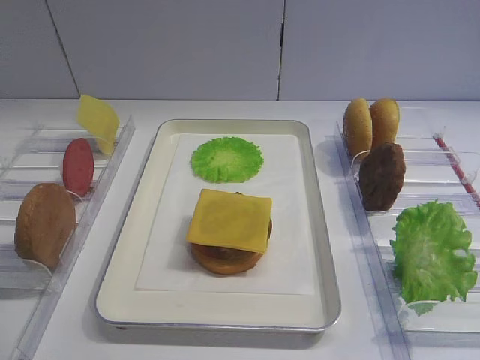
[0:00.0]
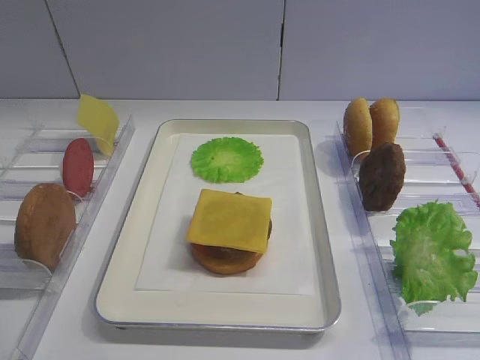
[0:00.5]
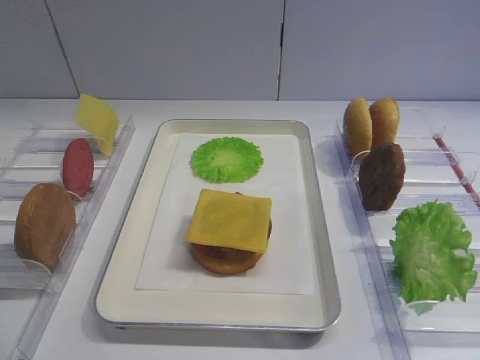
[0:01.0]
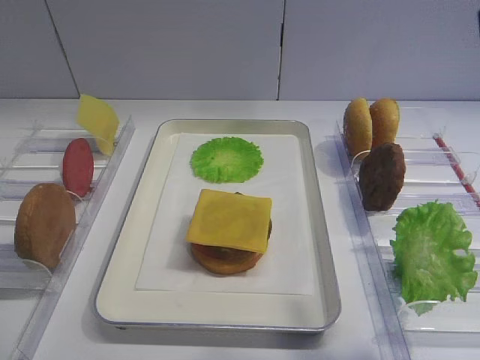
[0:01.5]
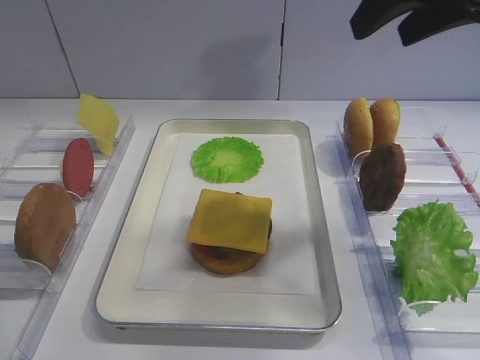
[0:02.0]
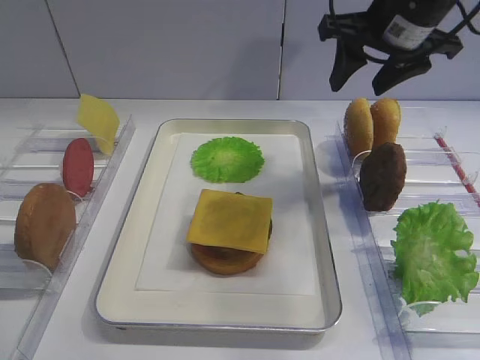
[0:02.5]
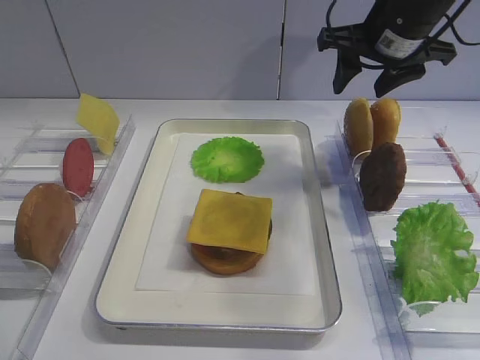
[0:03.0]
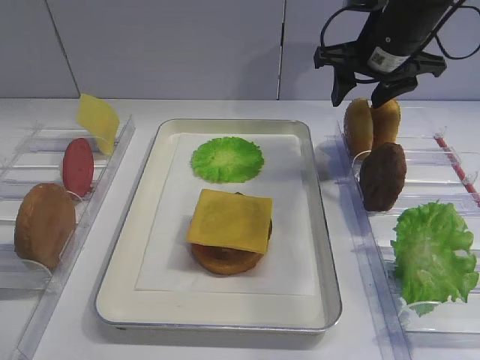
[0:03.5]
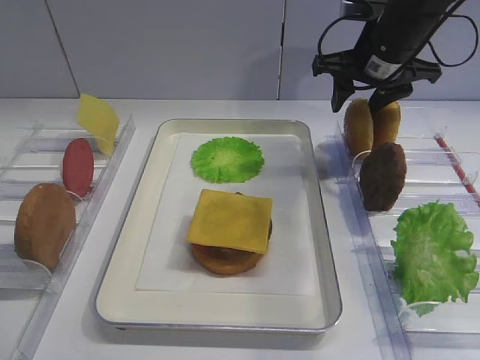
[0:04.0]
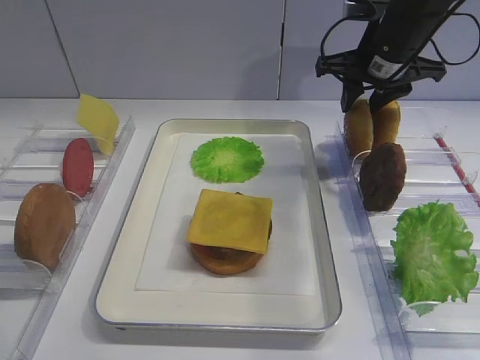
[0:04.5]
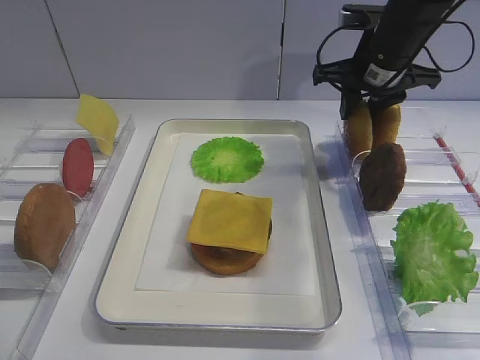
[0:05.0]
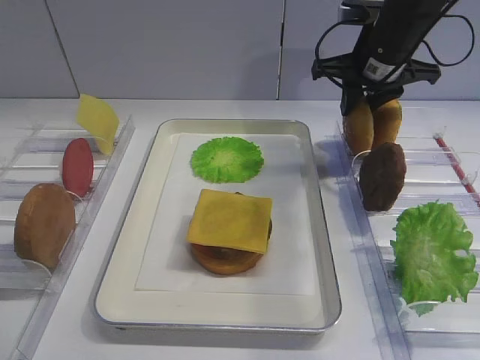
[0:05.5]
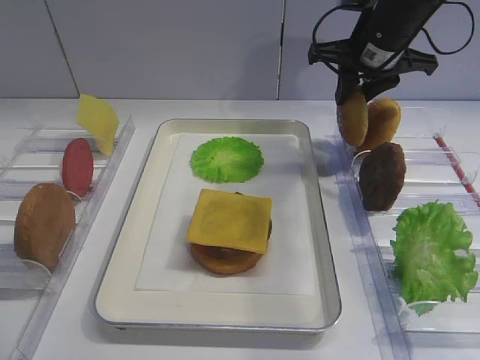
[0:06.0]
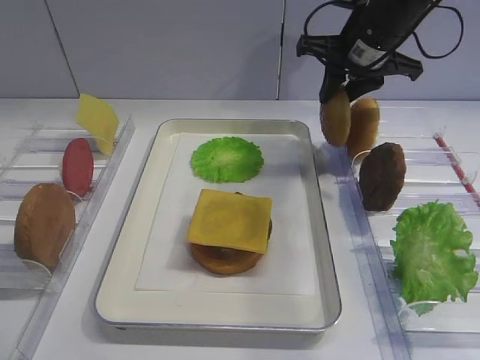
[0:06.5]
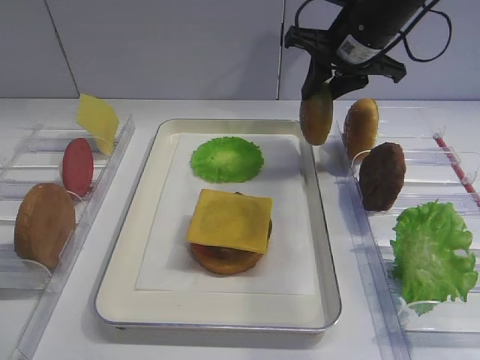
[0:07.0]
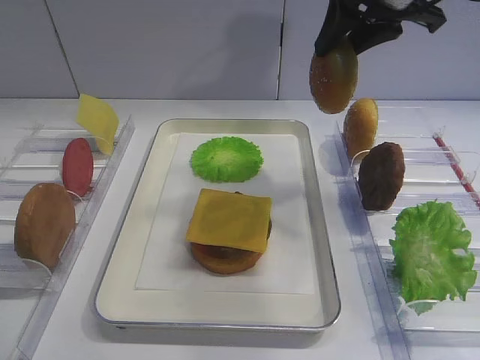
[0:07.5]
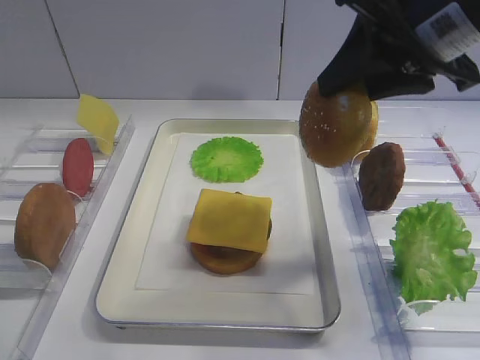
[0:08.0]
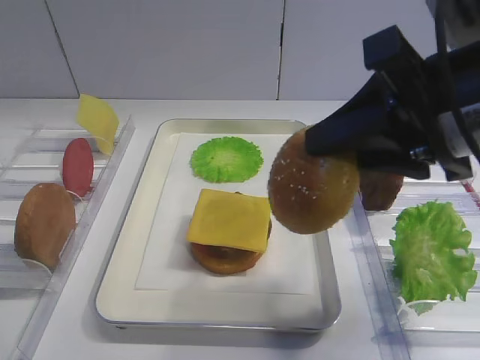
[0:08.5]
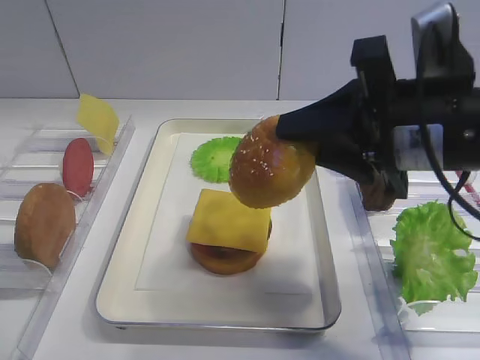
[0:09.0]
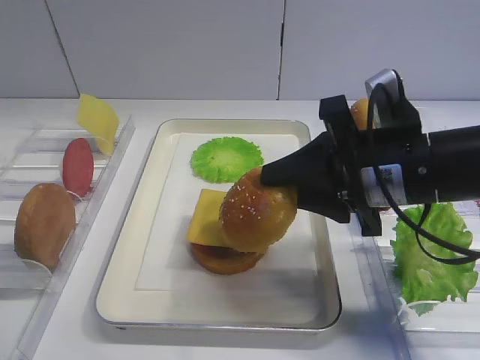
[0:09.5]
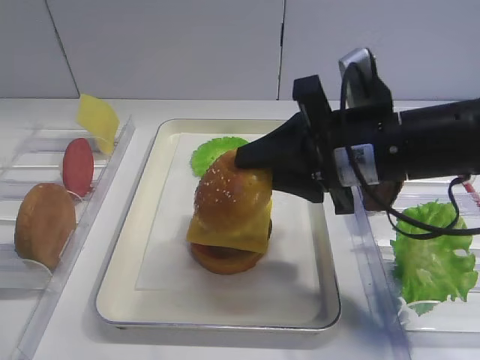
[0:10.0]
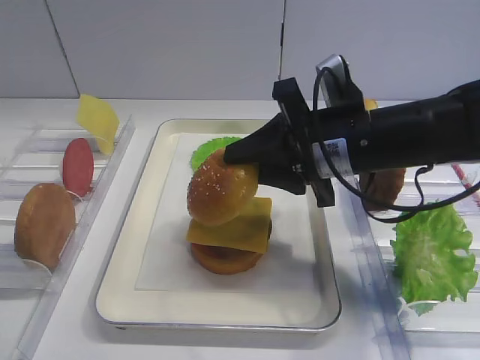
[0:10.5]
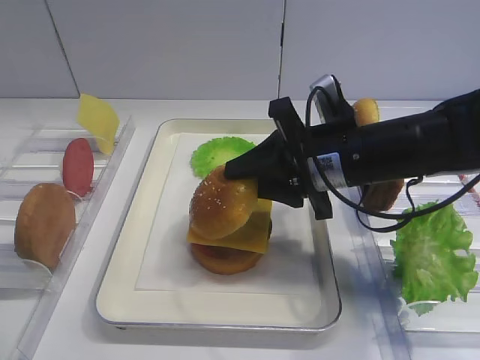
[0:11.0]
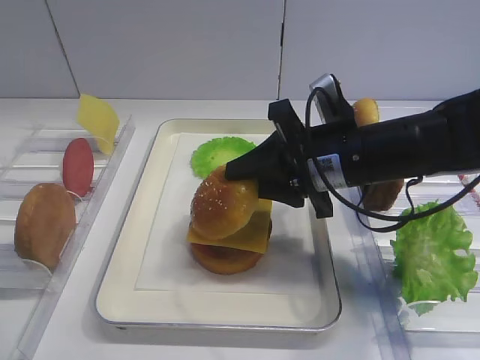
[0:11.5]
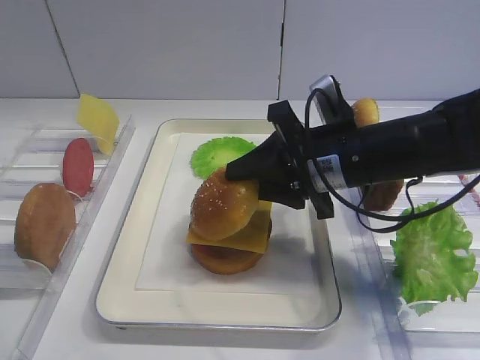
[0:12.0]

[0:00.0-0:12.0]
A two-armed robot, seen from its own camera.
Step, 0:00.0 to 0:06.5: Pick up the hamburger lid with the right gripper.
0:02.0 to 0:04.0: The right gripper heads forward and downward, covering roughly 20 cm.
0:04.0 to 0:06.0: The right gripper closes.
0:06.0 to 0:08.0: The right gripper shifts about 20 cm backward and upward.
0:08.0 to 0:10.0: The right gripper goes about 10 cm downward.
0:10.0 to 0:12.0: The right gripper moves roughly 5 cm.

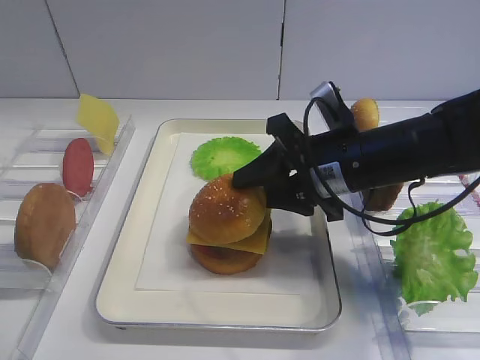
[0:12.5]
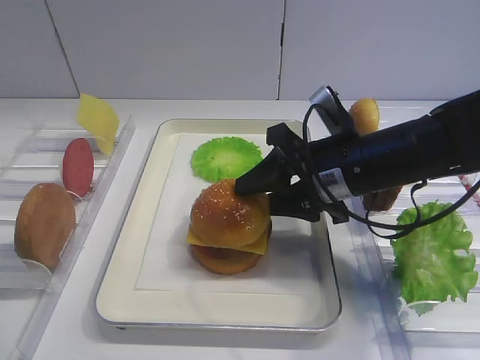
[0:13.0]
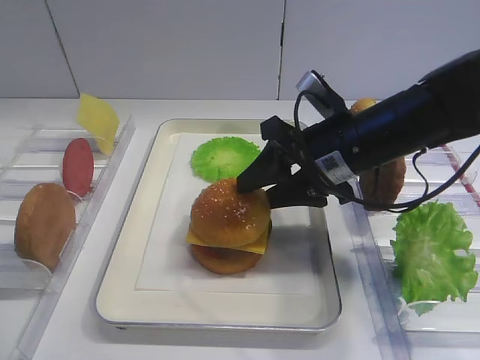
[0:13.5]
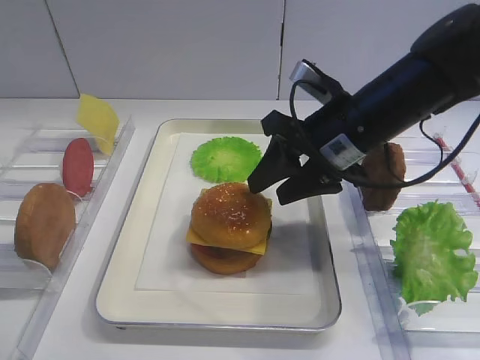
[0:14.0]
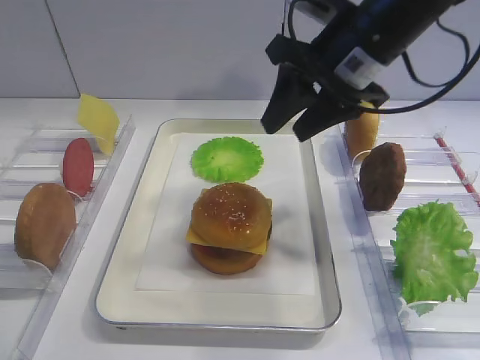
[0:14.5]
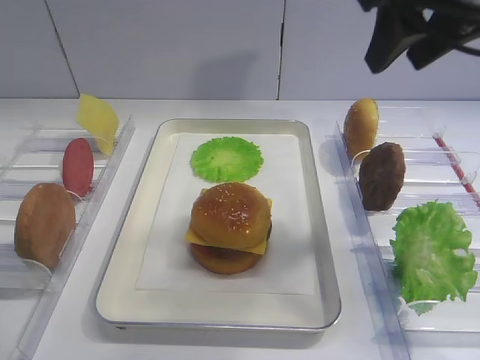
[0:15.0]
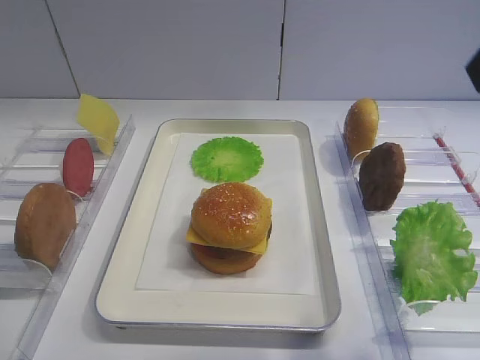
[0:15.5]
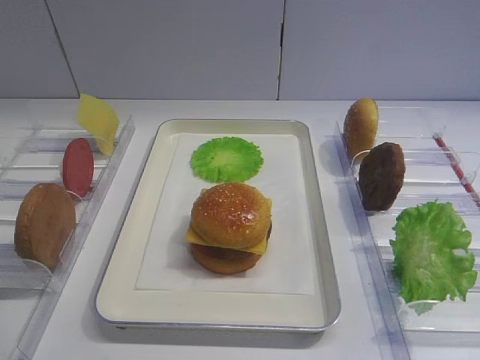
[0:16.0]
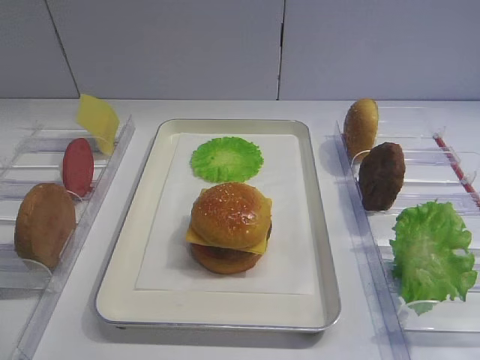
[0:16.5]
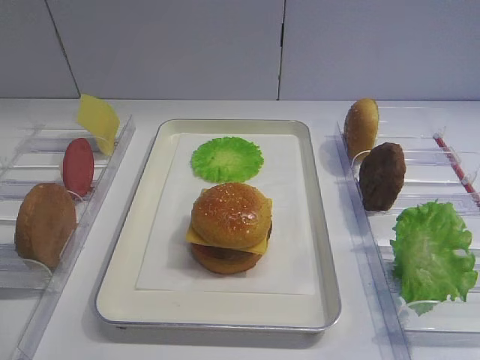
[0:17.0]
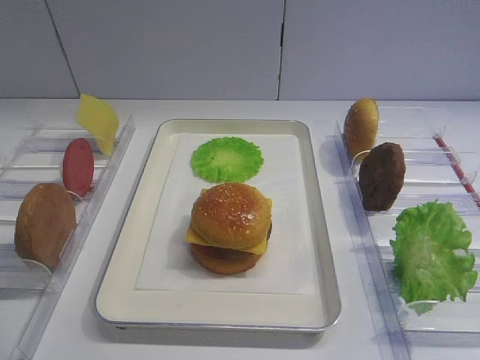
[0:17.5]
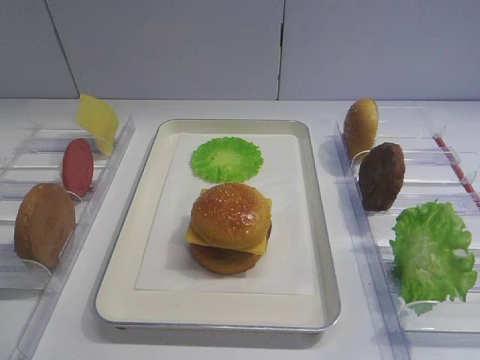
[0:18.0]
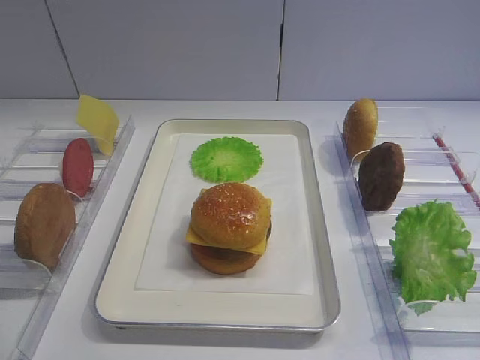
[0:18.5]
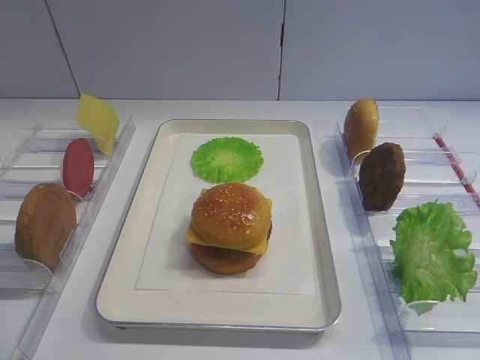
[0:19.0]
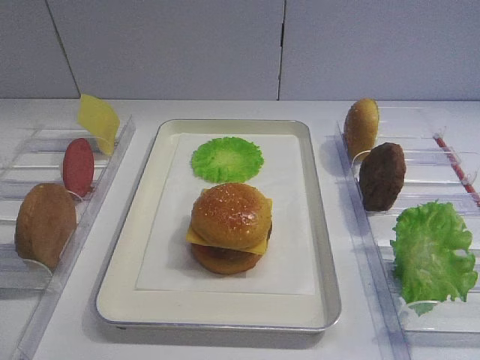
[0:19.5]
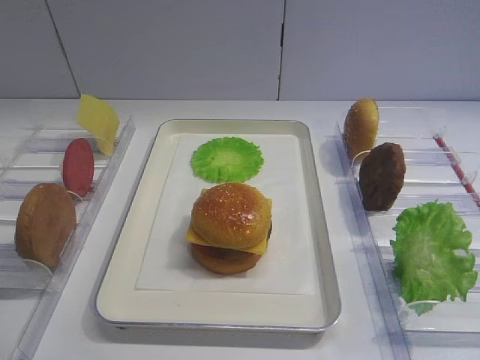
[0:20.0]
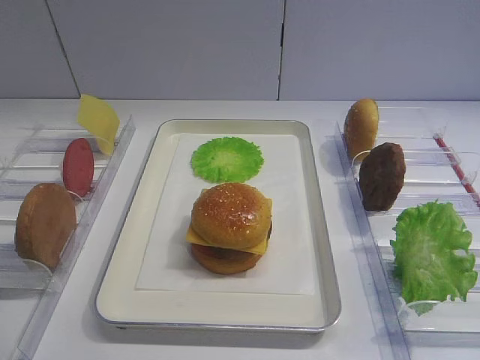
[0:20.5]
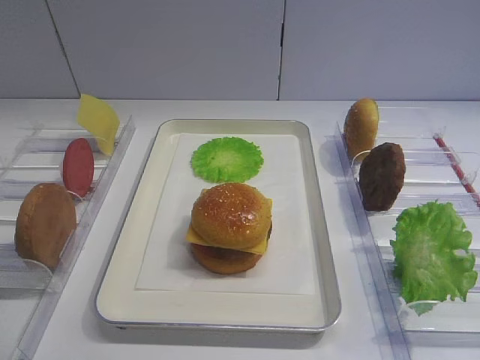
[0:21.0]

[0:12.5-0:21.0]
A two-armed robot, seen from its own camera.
0:12.5 to 0:14.5: The right gripper heads upward, covering roughly 10 cm.
0:14.5 to 0:16.5: The right gripper goes roughly 35 cm backward and to the right.
0:19.0 to 0:21.0: Both grippers stay about where they are.

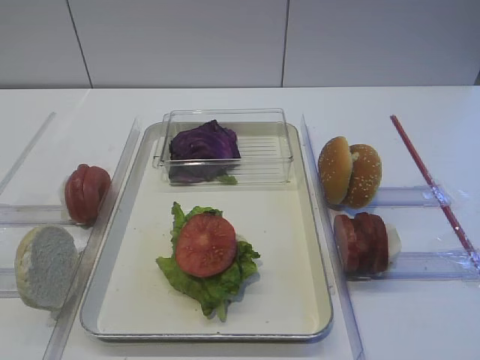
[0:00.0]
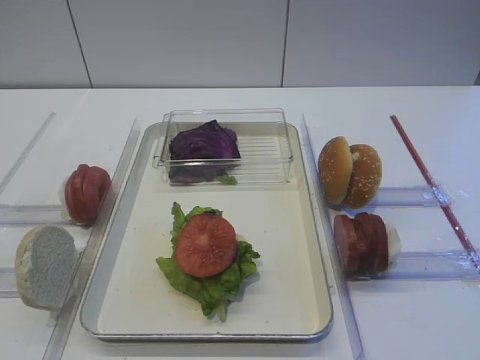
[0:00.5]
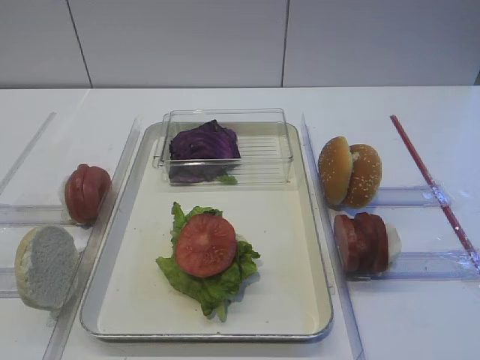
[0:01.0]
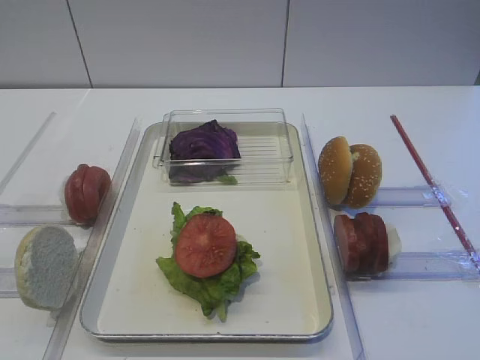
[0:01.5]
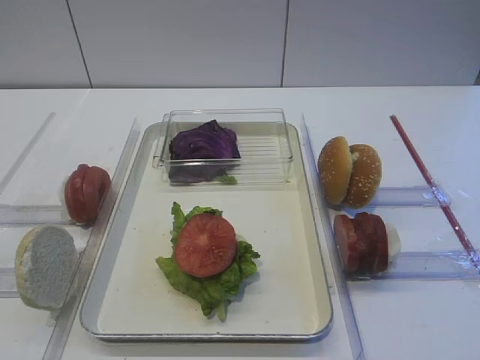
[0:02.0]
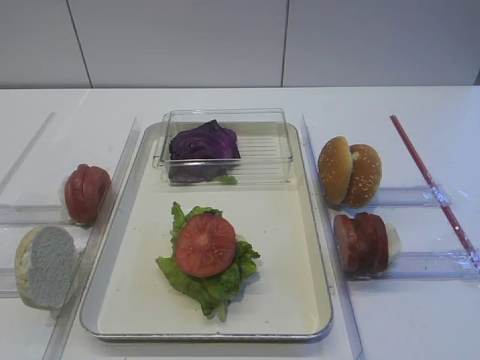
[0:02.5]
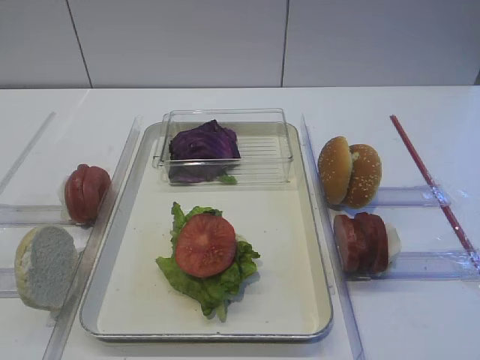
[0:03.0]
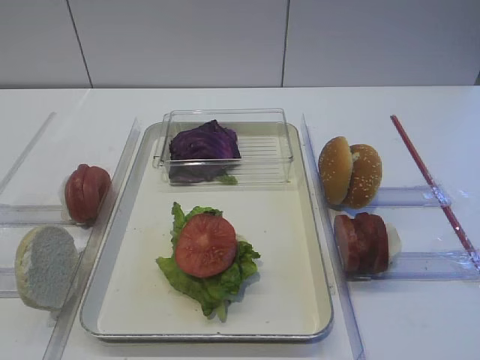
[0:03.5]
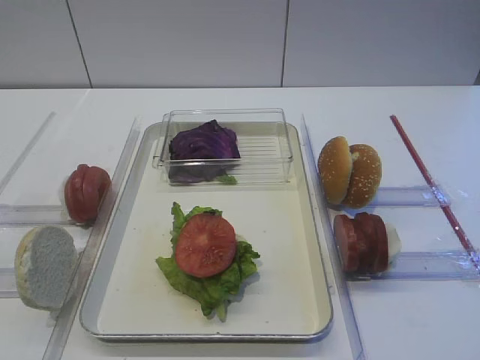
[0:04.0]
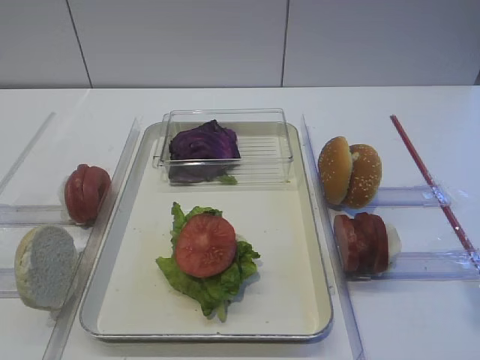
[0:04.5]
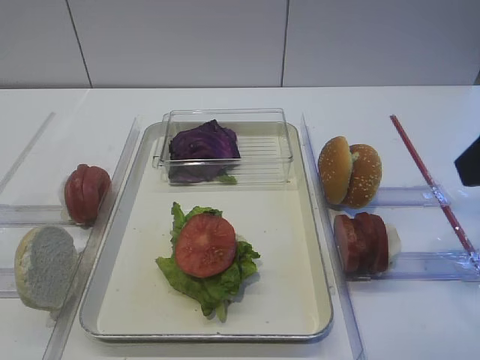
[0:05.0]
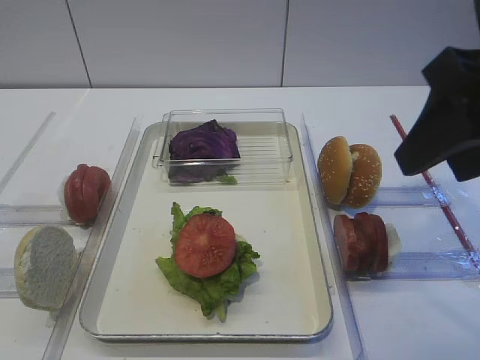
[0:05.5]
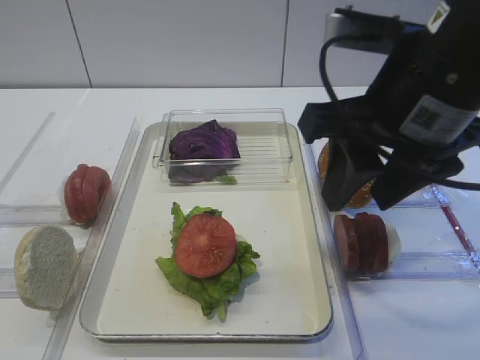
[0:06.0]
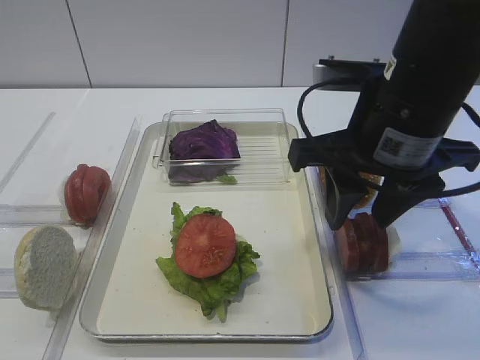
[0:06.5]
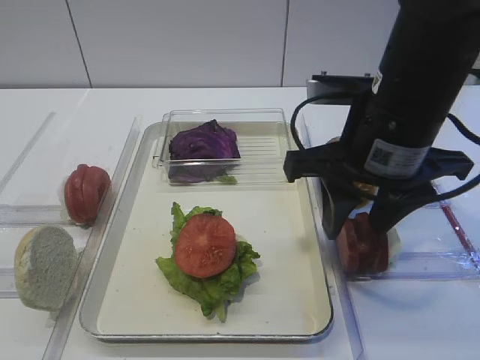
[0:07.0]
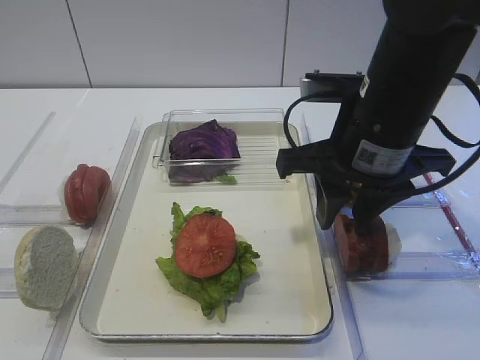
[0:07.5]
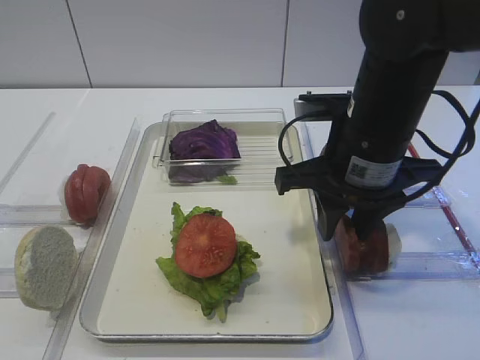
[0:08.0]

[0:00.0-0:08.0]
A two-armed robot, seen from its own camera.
0:04.0 to 0:06.0: The right gripper travels forward and to the left by some 20 cm.
0:06.0 to 0:08.0: The right gripper heads downward and forward, covering about 10 cm.
